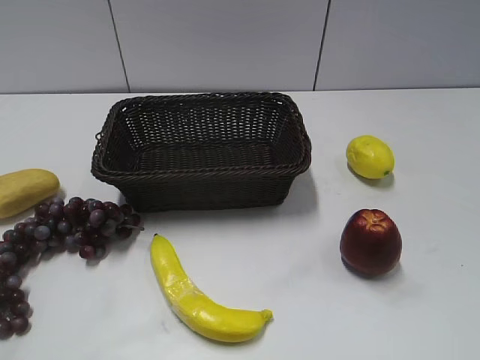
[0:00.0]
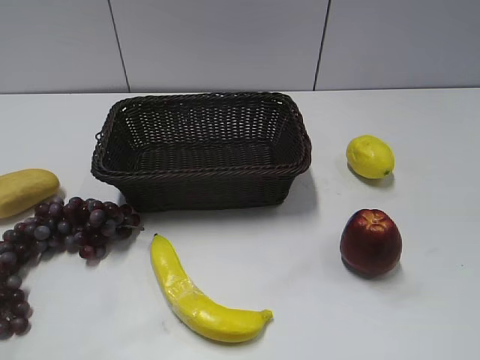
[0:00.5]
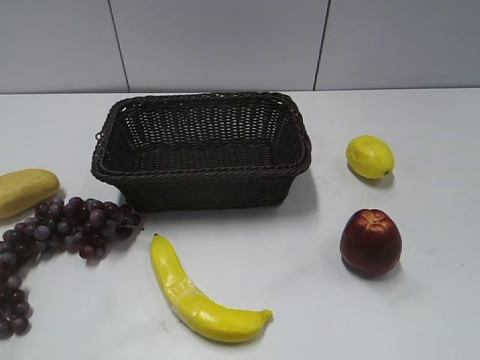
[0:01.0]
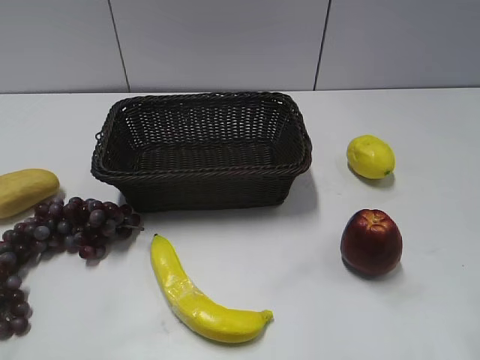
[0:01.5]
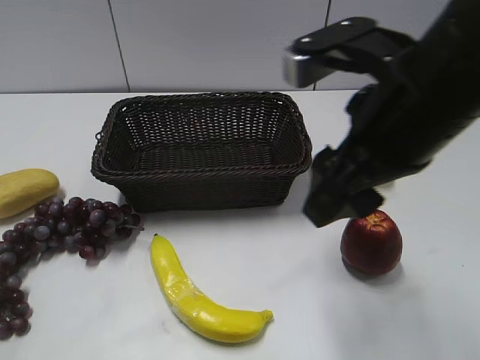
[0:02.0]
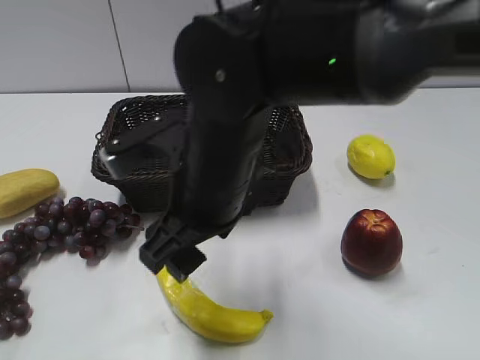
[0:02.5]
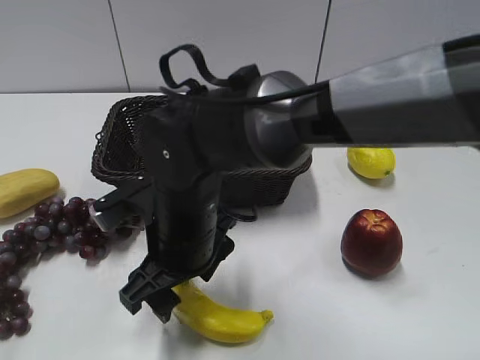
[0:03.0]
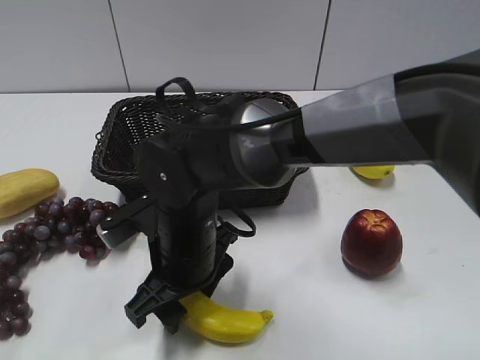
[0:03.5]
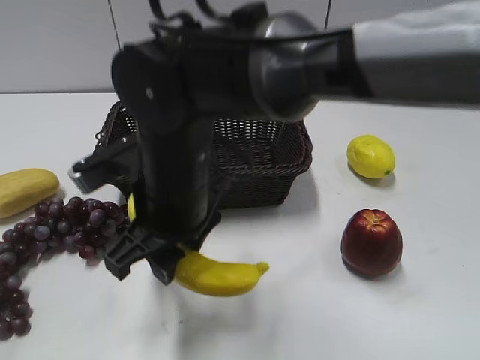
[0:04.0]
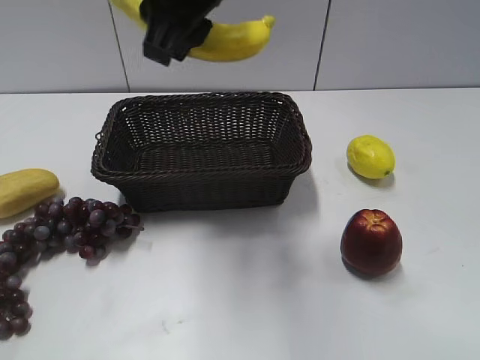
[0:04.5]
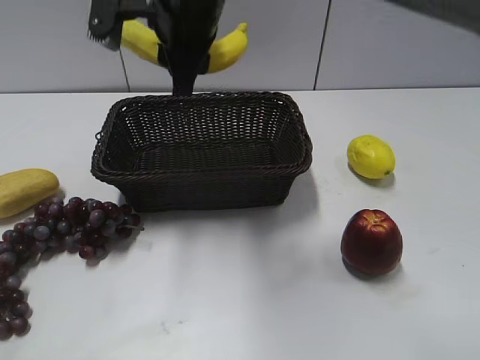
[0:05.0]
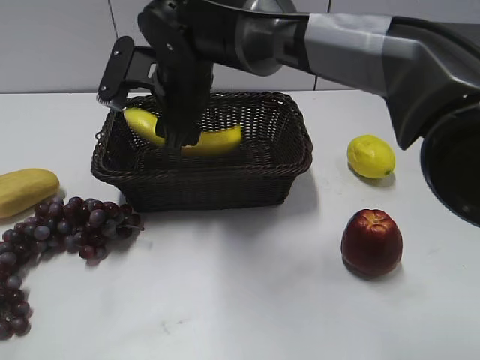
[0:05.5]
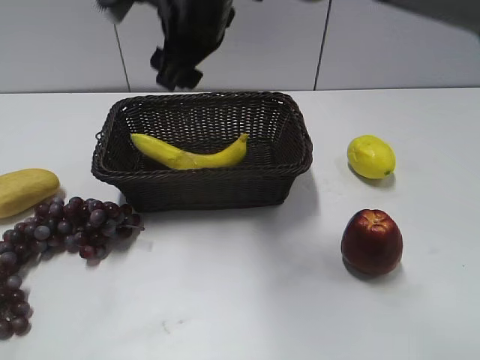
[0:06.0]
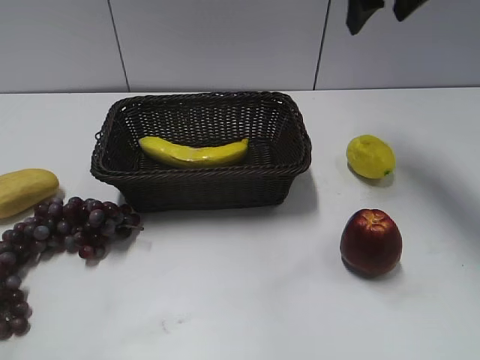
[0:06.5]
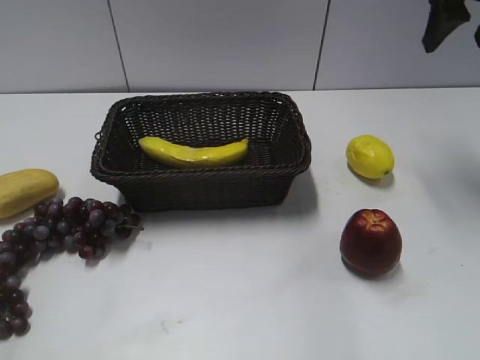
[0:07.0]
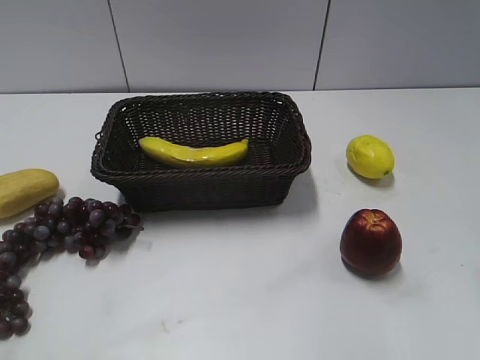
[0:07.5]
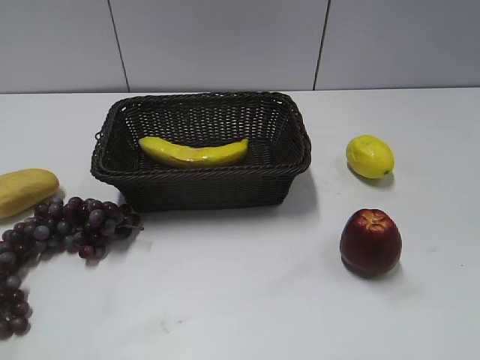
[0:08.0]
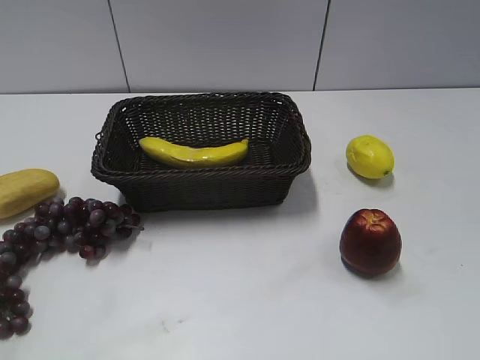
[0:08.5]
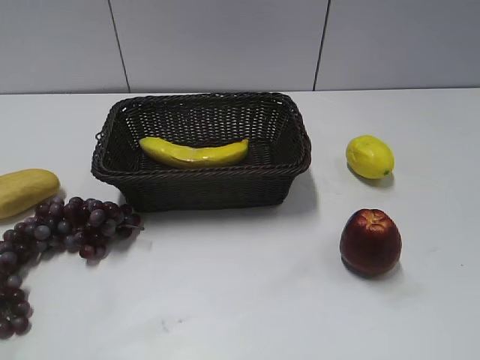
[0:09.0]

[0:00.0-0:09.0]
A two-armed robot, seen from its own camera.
Step, 0:02.0 to 0:03.5: Grasp the banana with right gripper.
Step, 0:04.0 to 0:05.5: Place the banana in the basket with right gripper.
0:02.0 to 0:04.5: The right gripper travels to the left and forward by roughly 15 cm, moves roughly 20 cm downward and comes back, and closes up.
0:04.5 to 0:07.0: The right gripper moves to the right, some 30 cm, and opens up.
0:07.0 to 0:09.0: The right gripper shifts about 40 cm backward.
